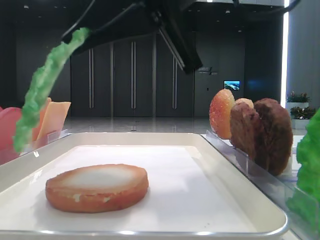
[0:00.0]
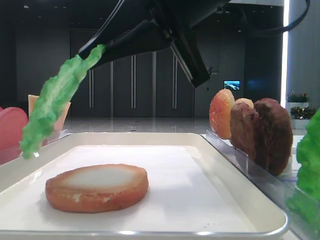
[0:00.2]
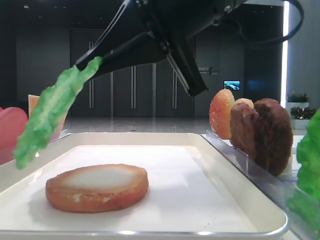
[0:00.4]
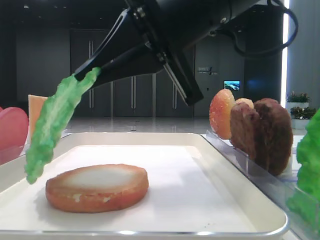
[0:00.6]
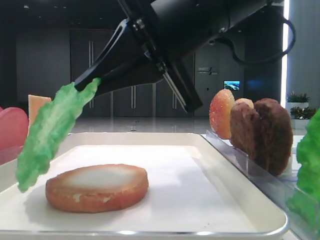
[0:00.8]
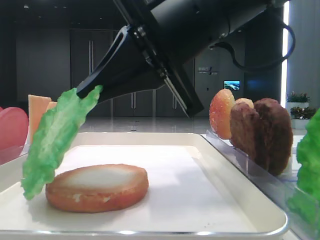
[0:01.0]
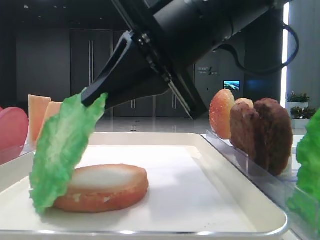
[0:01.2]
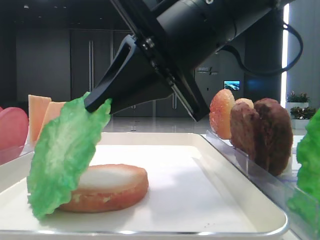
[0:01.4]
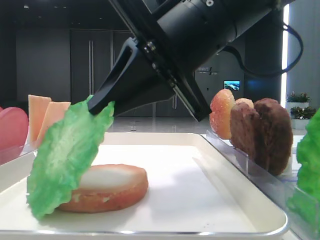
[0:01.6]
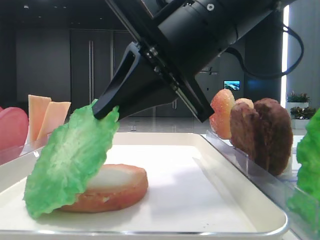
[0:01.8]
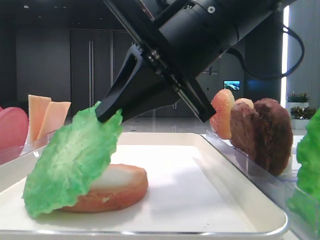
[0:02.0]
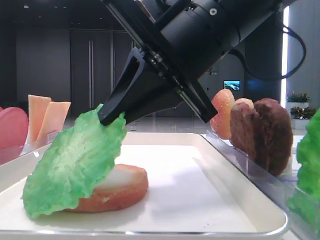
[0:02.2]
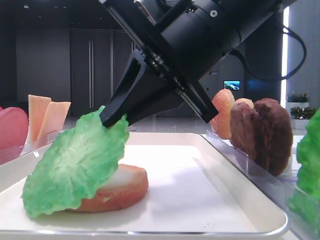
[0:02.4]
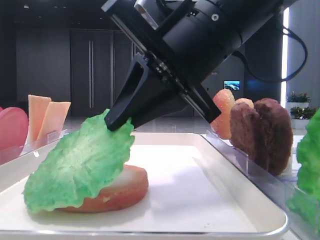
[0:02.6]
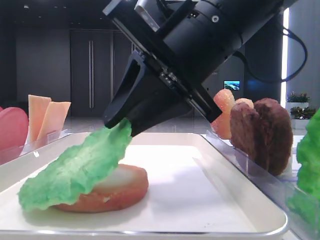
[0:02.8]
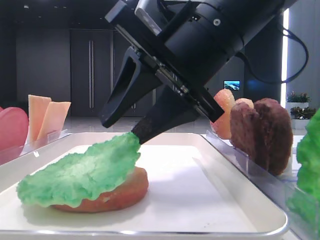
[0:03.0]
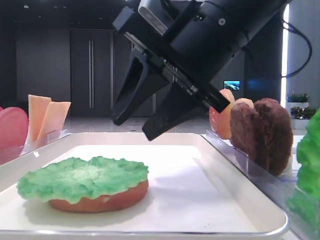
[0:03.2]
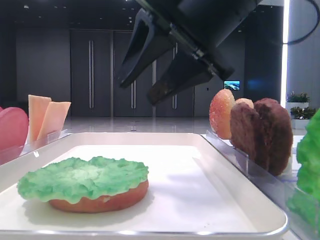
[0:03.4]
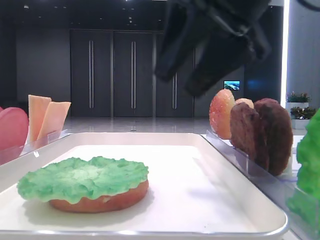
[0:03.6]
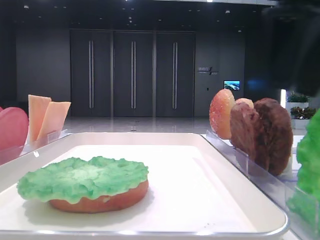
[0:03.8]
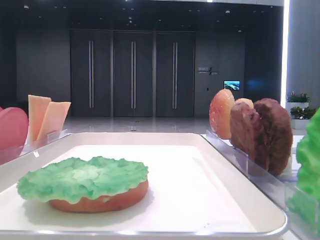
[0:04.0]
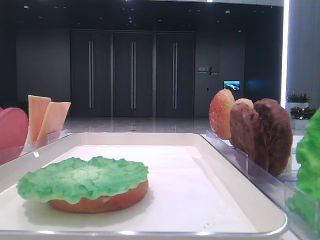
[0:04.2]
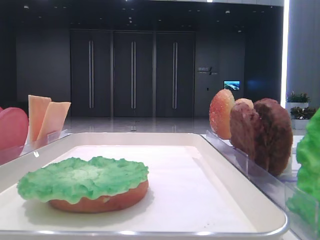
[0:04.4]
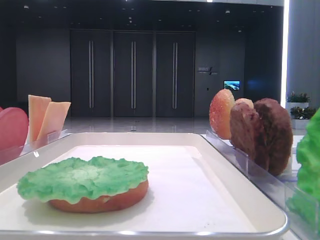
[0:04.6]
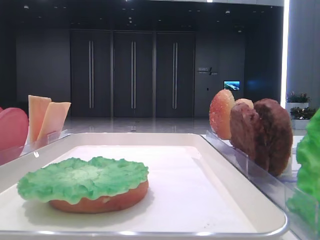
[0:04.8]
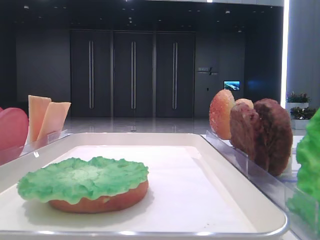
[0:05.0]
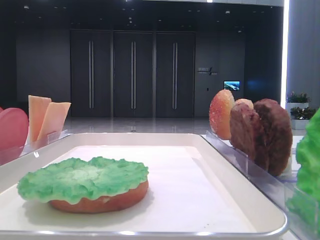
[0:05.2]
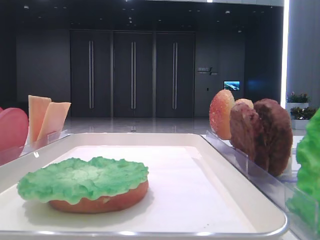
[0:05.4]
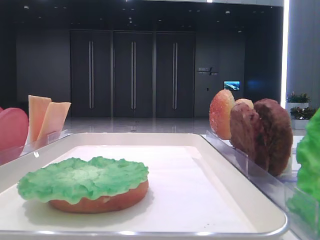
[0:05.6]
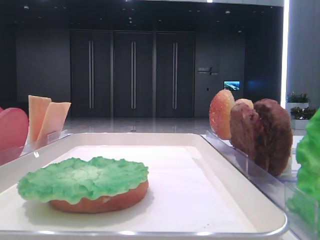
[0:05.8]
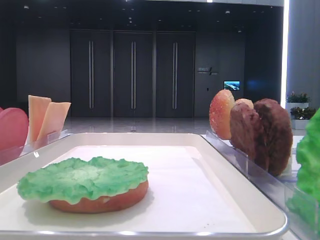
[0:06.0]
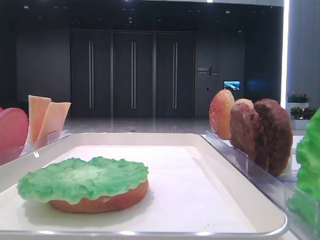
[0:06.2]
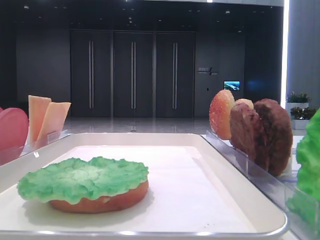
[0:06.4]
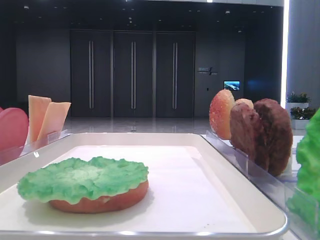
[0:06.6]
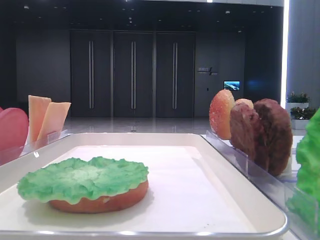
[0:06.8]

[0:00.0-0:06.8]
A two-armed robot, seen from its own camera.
Step, 0:00.0 to 0:03.0: Place the lettuce leaf on the bottom bread with the right hand.
0:00.0 to 0:01.4: The grippers stay close to where they were, moving slightly.
0:01.4 to 0:02.8: The right gripper opens its fingers.
0:02.8 to 0:04.0: The right gripper moves to the right and upward, roughly 25 cm.
0:04.0 to 0:05.4: The right gripper travels backward by some 25 cm.
